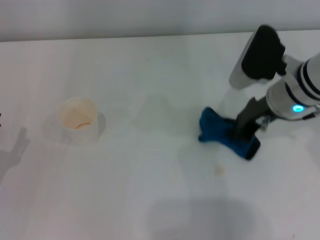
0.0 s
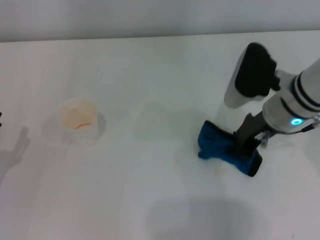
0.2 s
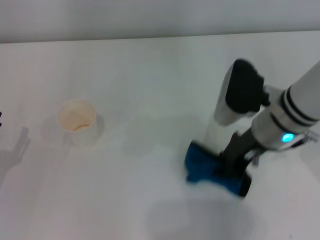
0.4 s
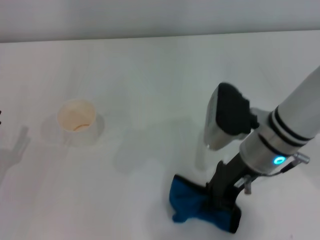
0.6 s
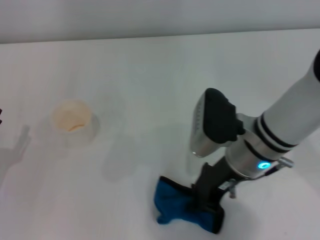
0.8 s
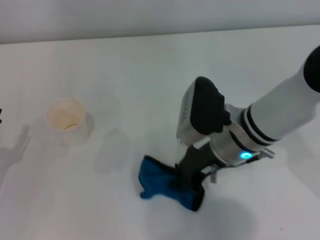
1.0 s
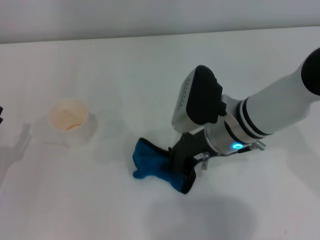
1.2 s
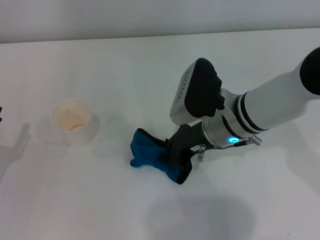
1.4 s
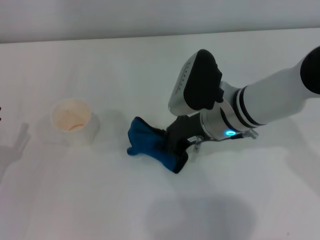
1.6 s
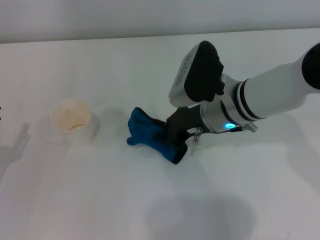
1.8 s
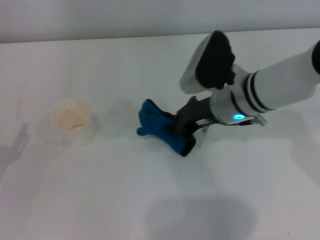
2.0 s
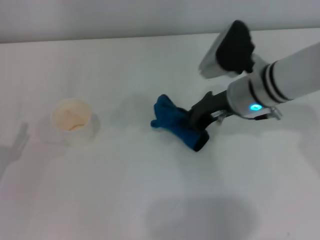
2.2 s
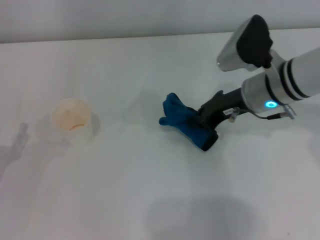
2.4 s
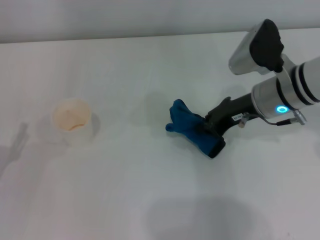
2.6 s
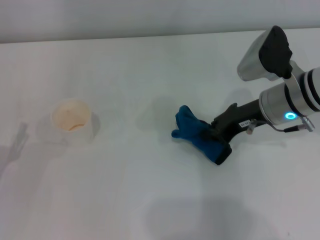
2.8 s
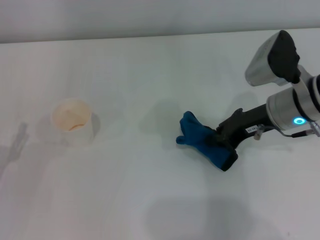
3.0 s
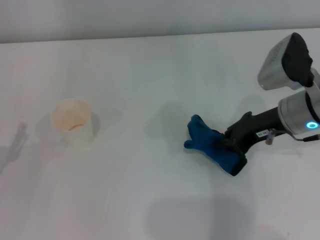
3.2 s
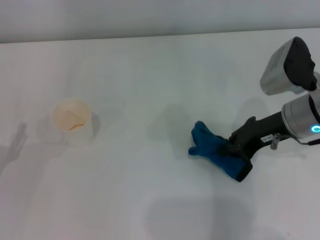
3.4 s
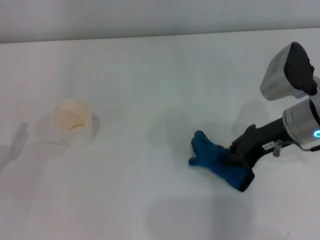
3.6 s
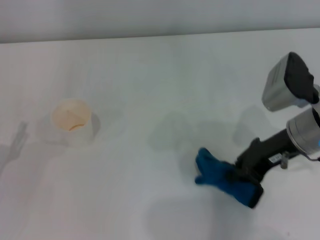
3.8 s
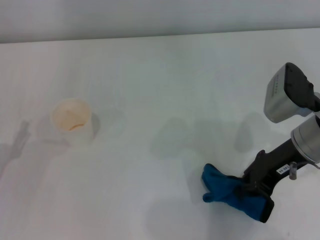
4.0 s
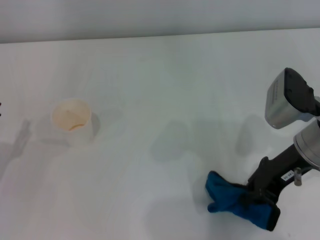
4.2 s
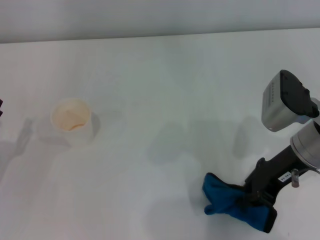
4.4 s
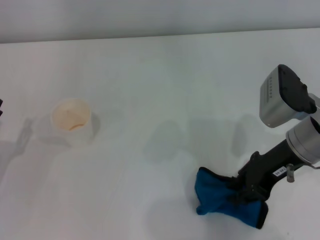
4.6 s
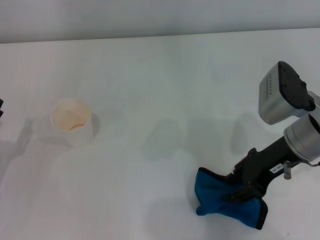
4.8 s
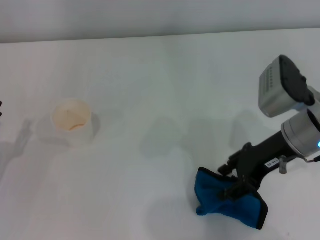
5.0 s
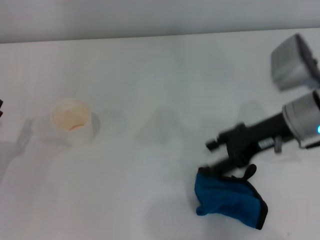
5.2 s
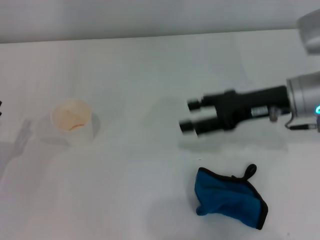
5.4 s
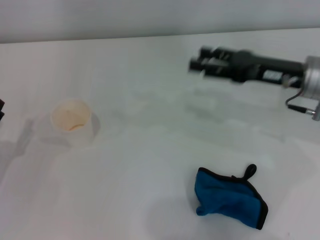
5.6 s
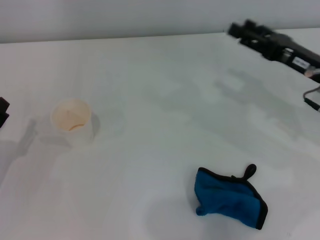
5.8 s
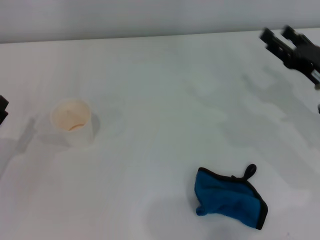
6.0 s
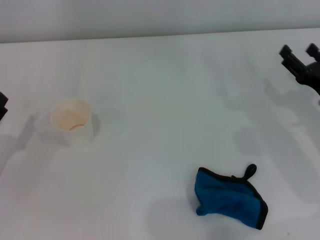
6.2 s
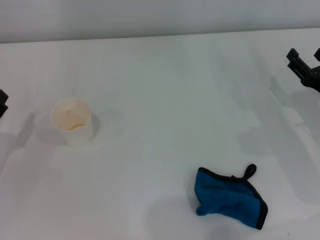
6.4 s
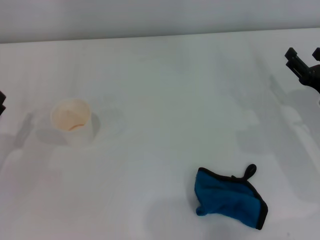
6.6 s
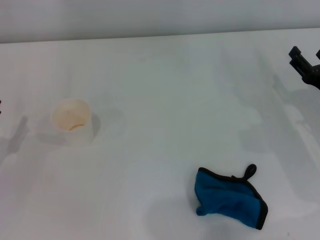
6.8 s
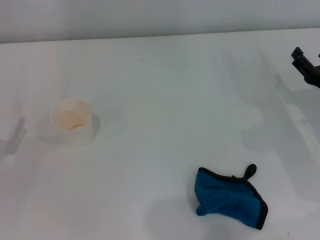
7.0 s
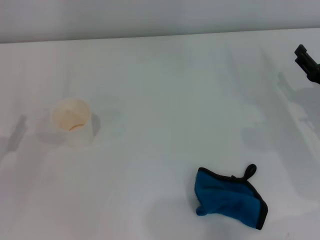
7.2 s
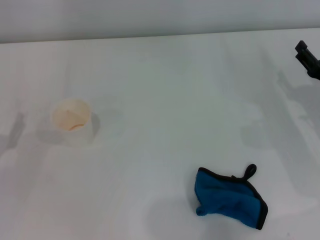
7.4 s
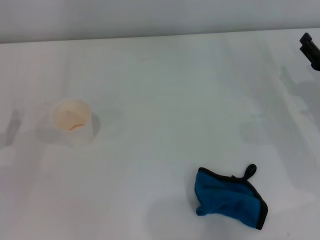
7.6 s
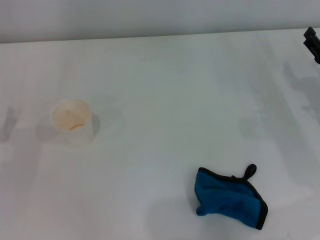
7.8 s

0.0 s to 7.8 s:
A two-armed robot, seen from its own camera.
Step, 0.0 to 3.6 s: Wipe the stains off the table with the right gripper.
Step, 4.0 to 4.4 s: Place the rag on the table with the right gripper.
0.0 to 1.6 s: The right gripper heads to the left, covering approximately 10 cm.
1.6 to 3.2 s: The right gripper heads to the right, covering approximately 10 cm.
4.6 to 6.2 s: The right gripper is displaced to the right and downward by about 10 cm, and opens.
6.2 to 7.8 s: The grippers stay close to where they were, moving slightly.

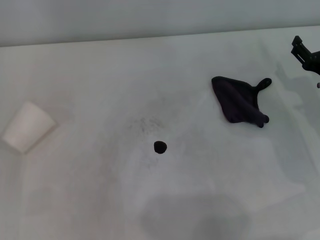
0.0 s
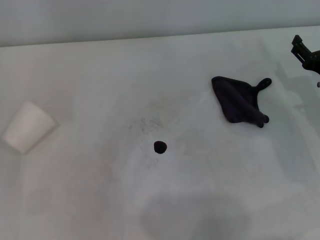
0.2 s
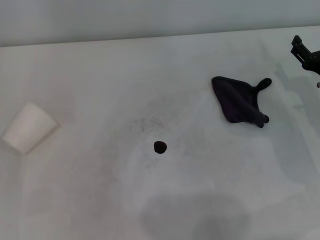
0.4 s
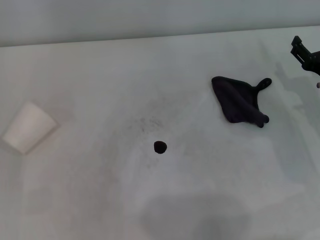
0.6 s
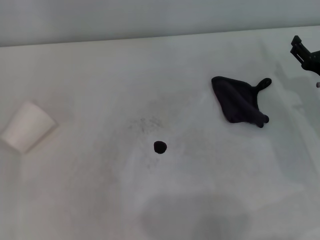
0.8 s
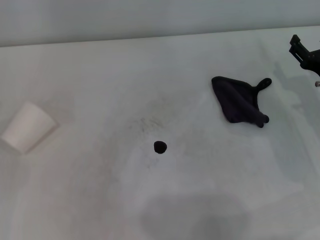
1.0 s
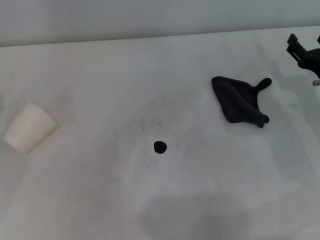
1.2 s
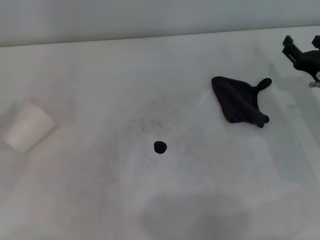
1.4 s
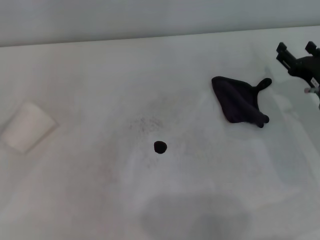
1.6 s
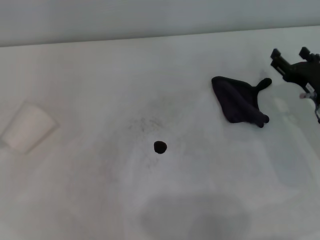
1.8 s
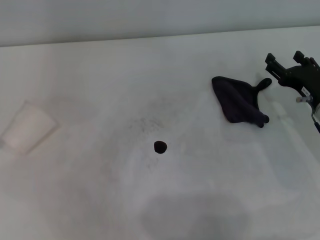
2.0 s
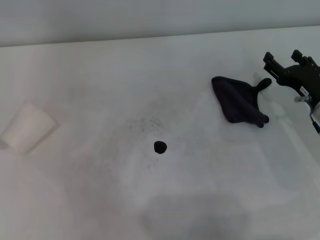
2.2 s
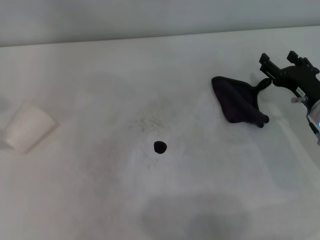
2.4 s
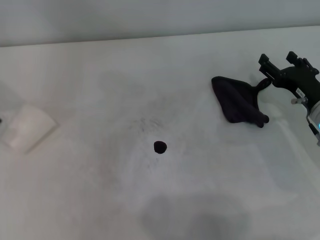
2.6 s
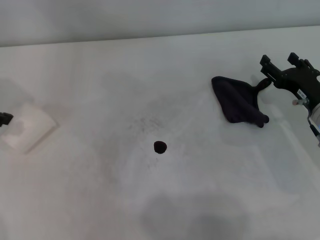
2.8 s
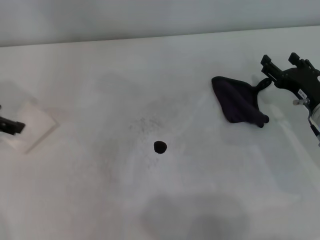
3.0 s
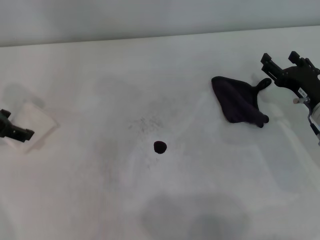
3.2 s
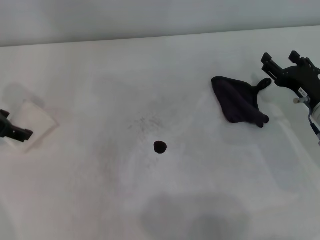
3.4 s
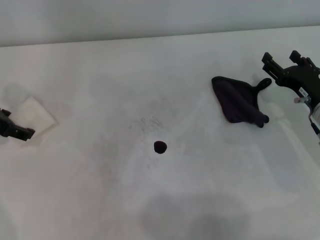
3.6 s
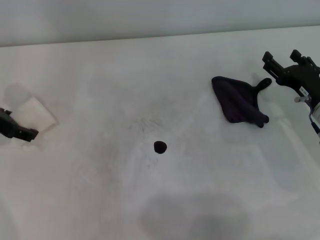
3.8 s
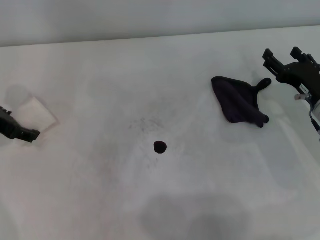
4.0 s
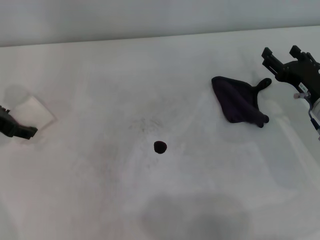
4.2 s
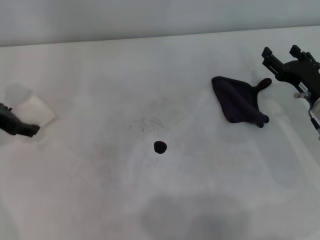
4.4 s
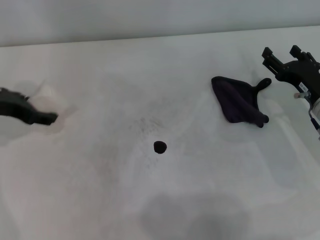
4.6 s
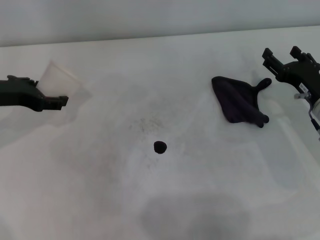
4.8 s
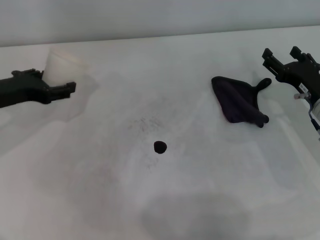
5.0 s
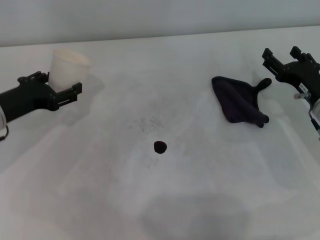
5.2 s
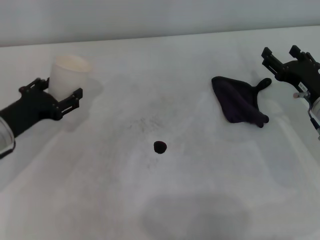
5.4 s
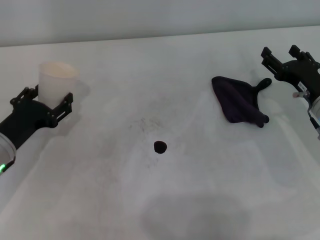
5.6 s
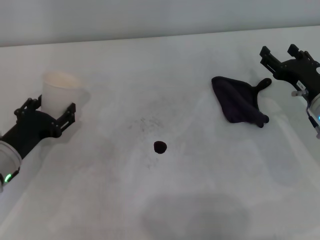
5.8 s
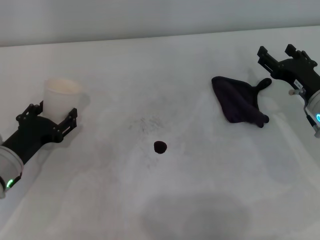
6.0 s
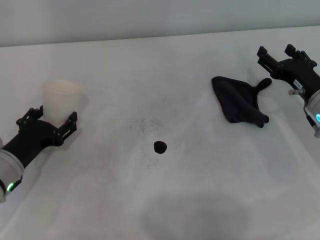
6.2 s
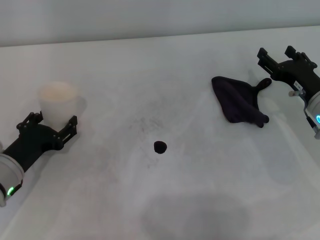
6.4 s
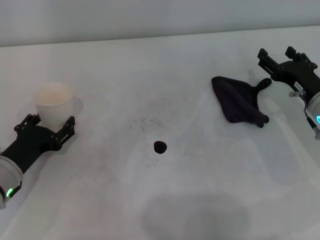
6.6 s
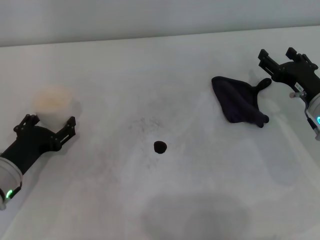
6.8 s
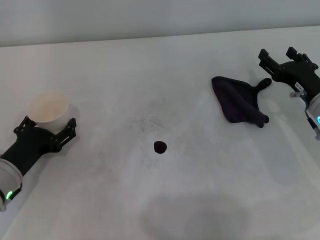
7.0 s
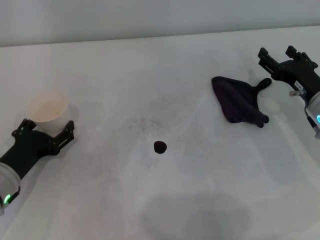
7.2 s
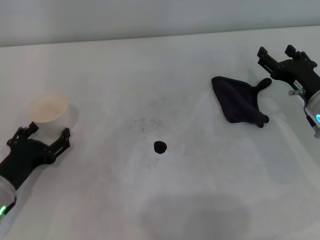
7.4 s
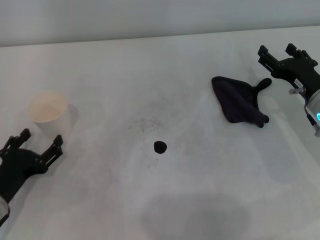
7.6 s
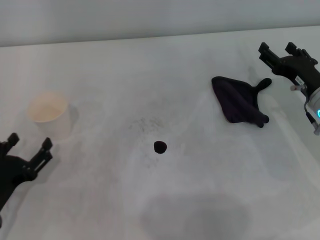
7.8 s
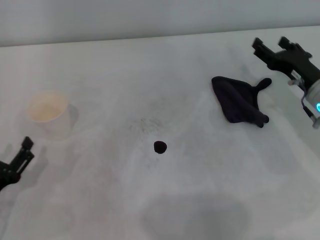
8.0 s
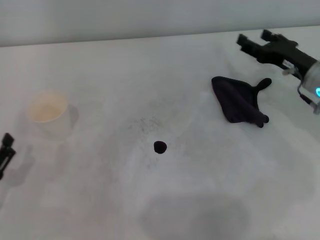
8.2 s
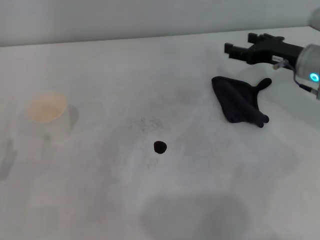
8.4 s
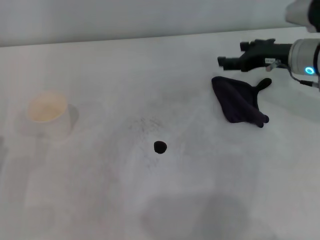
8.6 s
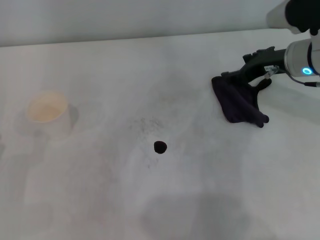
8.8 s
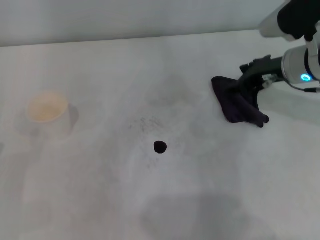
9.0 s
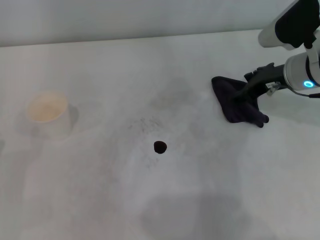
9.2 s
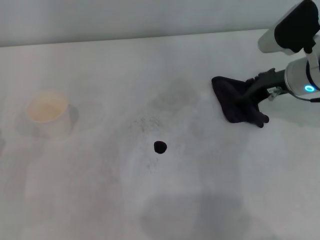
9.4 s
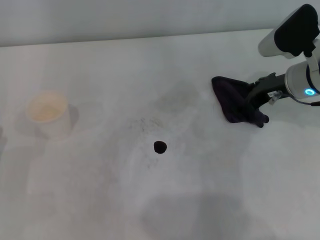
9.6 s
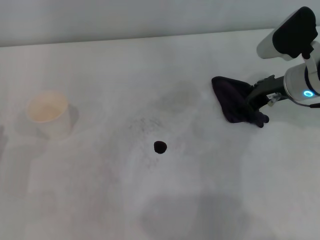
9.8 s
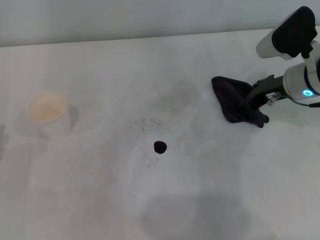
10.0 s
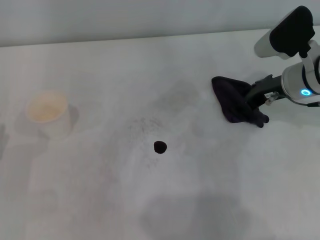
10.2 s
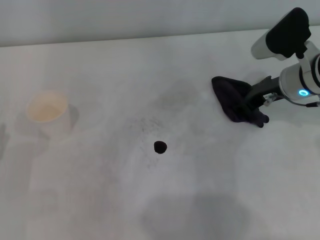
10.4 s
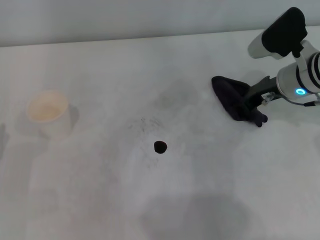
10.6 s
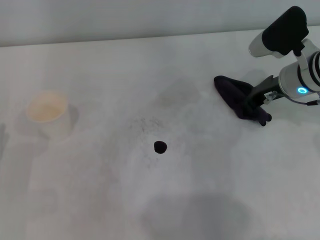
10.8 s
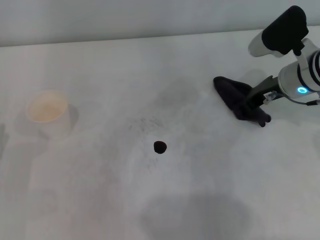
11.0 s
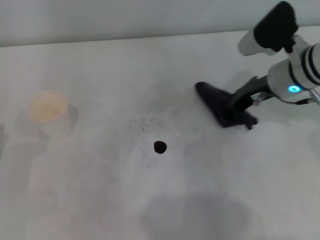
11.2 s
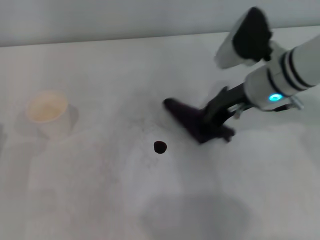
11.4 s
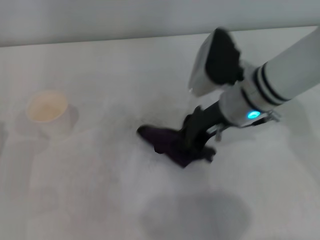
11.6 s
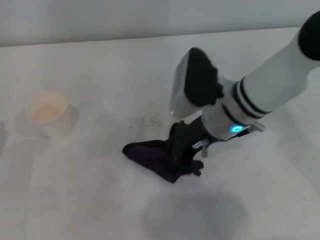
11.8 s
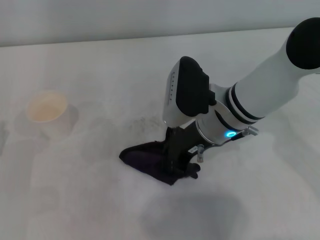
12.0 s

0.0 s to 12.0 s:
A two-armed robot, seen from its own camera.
Step, 0.0 to 4.0 s: Grasp the paper cup with the left gripper.
Step, 4.2 to 7.2 s: Stand the paper cup upright with the left gripper.
Step, 7.4 to 10.8 s: Grasp the rag with the right gripper.
3.0 to 4.4 s: The left gripper ends up about 5 cm from where it was.
4.4 to 6.0 s: The left gripper is displaced downward and backward by approximately 15 cm.
6.0 to 7.6 s: The left gripper goes roughly 5 cm backward.
7.6 to 9.0 s: The left gripper shifts about 5 cm to the left, while the right gripper travels upward and forward by about 10 cm.
9.0 to 10.4 s: The grippers make only small movements.
10.4 to 12.0 s: The right gripper goes some 15 cm to the left, and closes up.

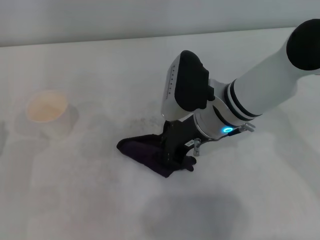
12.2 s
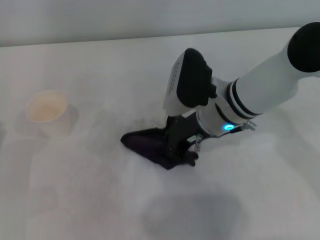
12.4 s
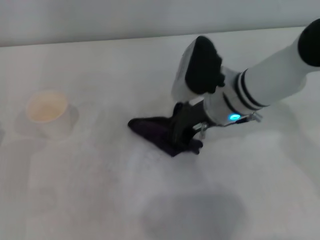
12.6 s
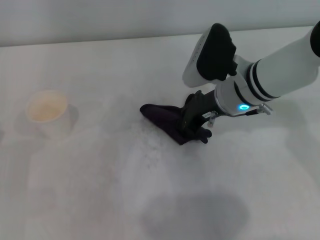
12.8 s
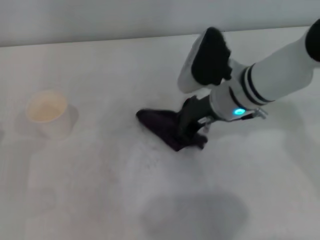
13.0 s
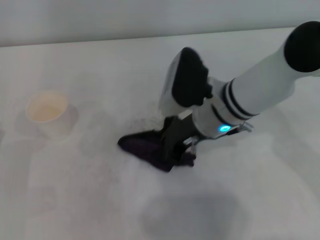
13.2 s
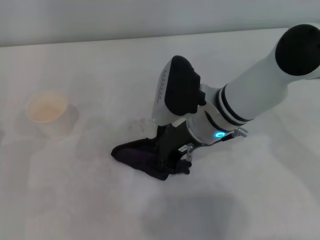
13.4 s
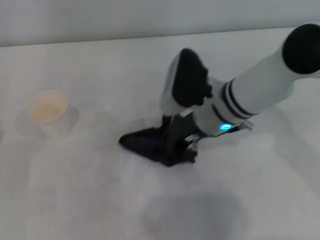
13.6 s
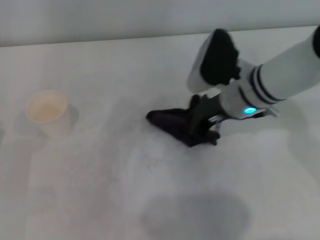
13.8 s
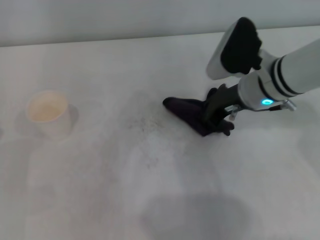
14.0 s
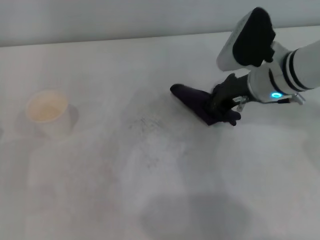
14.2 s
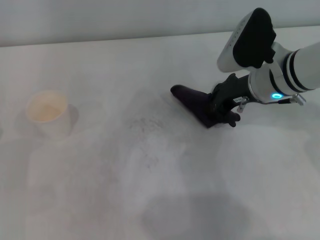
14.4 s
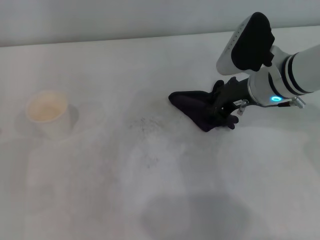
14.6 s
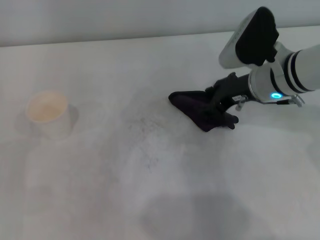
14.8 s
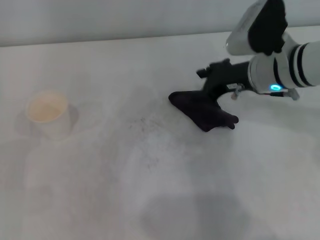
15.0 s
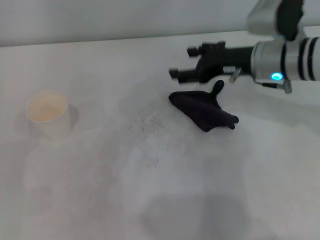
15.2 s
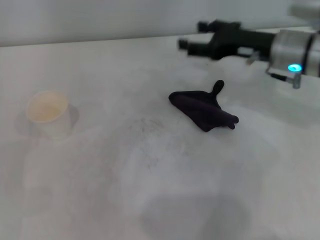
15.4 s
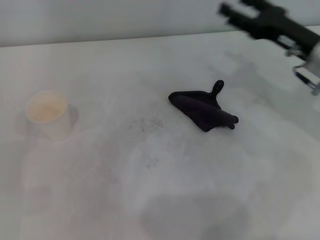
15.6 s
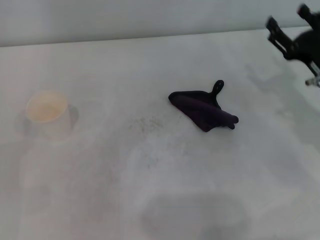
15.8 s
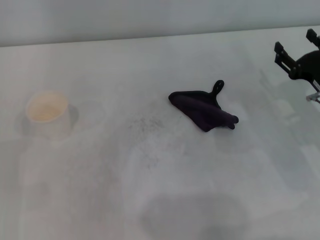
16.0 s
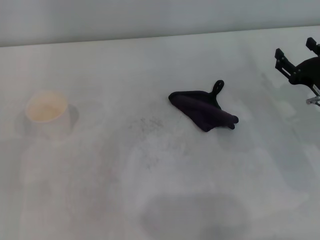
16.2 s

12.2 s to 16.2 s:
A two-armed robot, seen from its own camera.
Step, 12.2 to 13.6 s: Wipe the stains off the table with the right gripper.
Step, 14.0 to 14.6 s: Place the rag on the table with the right gripper.
12.2 to 13.6 s: The grippers stay close to where they were, moving slightly.
13.6 to 14.8 s: The right gripper goes about 10 cm to the right, and opens.
14.8 to 16.2 s: The right gripper moves to the right, downward and backward, about 15 cm, and opens up.
